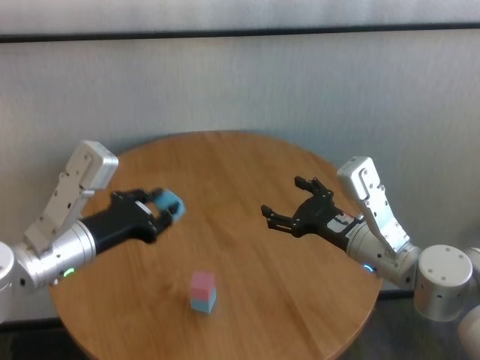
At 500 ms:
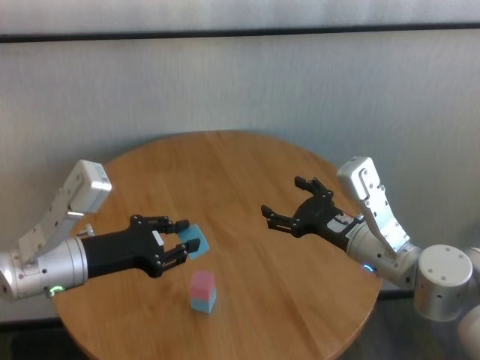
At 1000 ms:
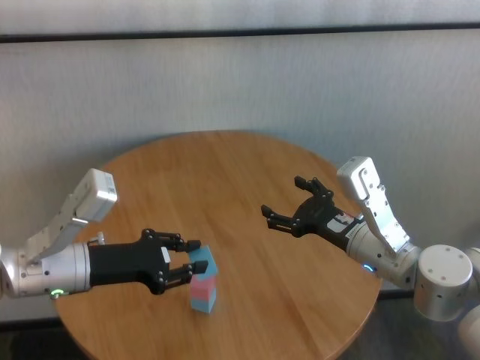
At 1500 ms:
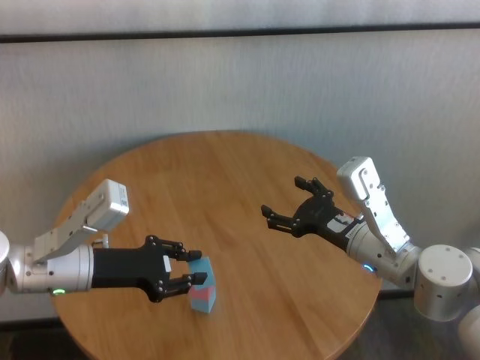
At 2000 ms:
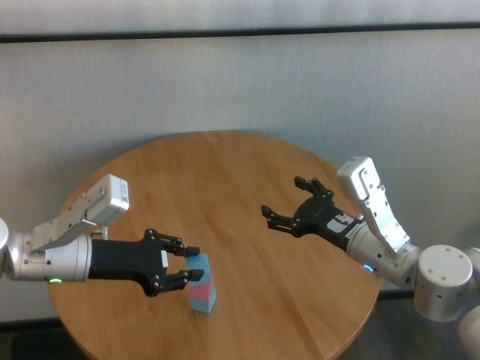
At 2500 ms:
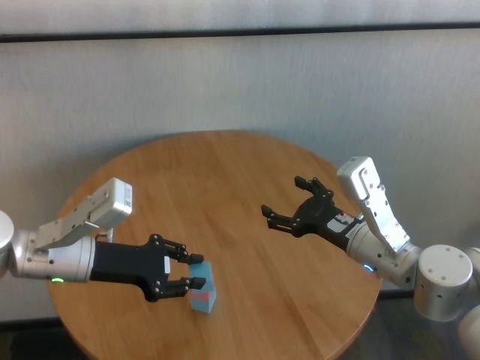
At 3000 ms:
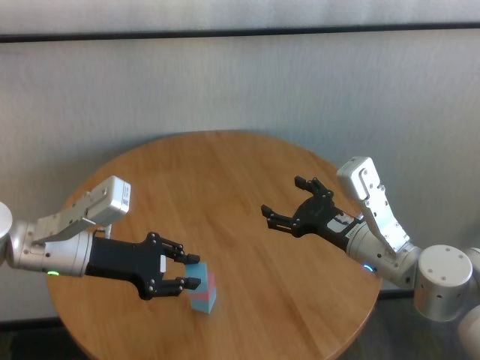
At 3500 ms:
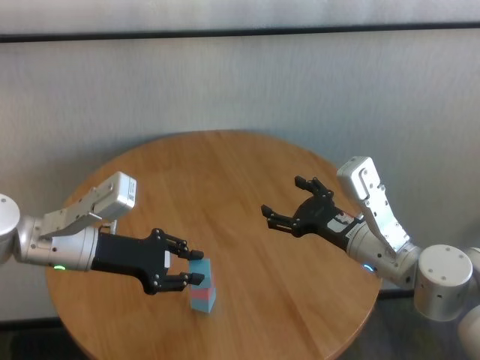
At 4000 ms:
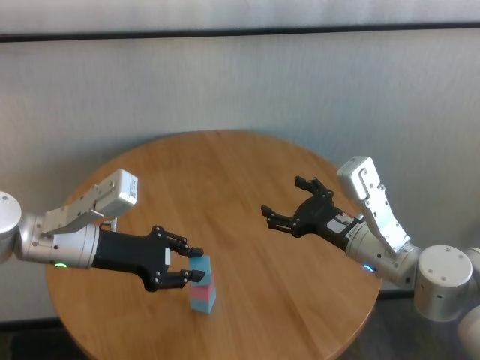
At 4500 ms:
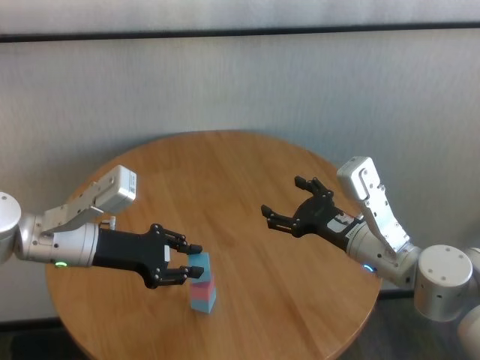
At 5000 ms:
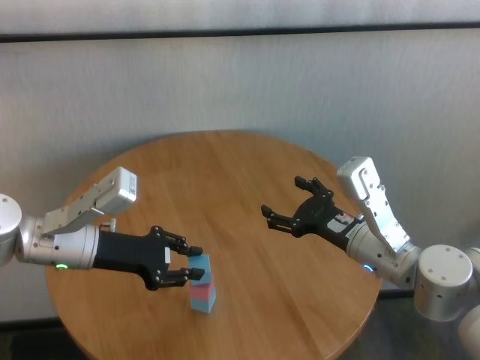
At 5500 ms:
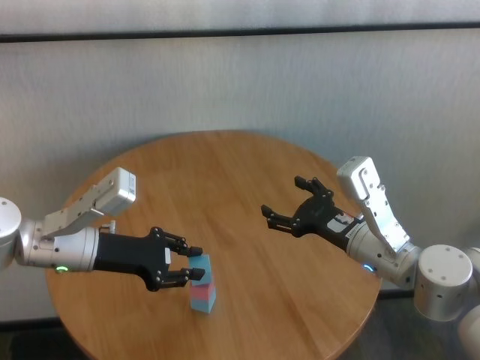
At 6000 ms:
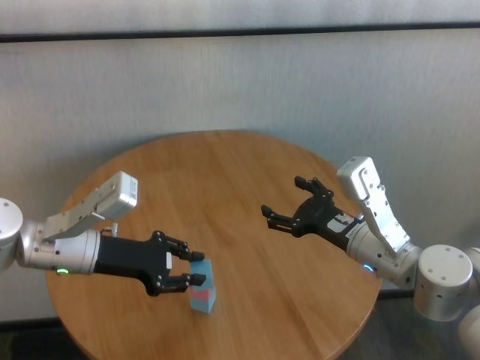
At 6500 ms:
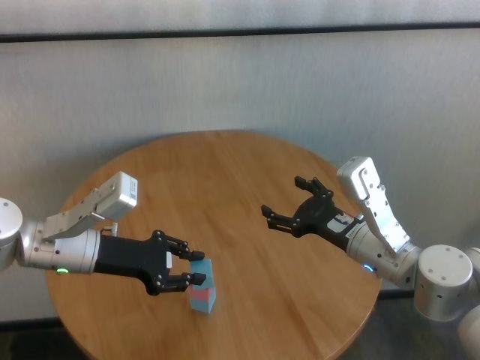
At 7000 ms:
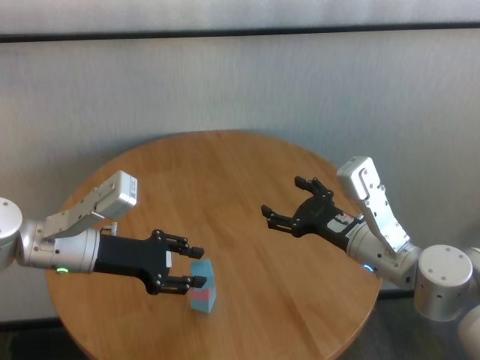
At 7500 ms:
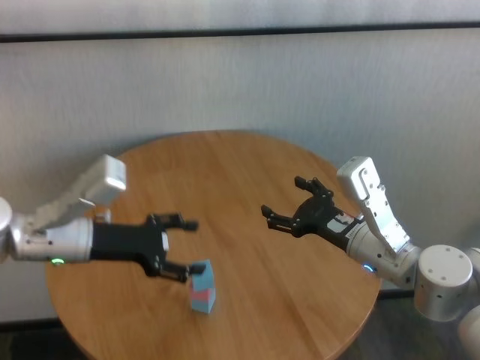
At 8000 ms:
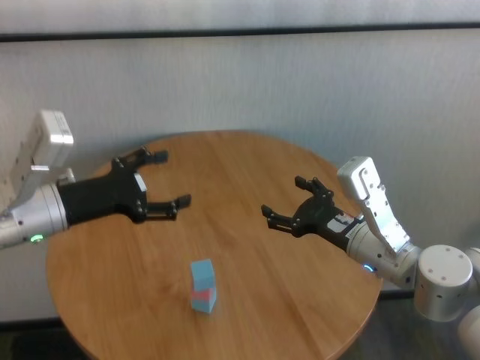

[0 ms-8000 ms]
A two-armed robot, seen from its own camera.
Task of the whole recording: stack building blocks on the table.
Step, 0 ms to 7000 ms: Place the blue building block on the pink building blocks with left gripper.
